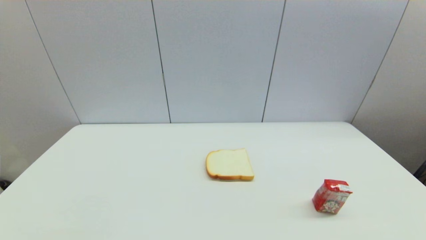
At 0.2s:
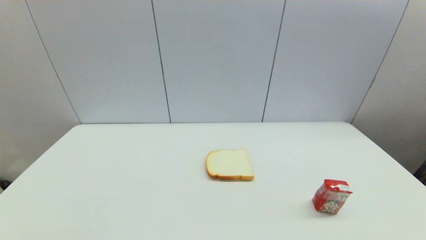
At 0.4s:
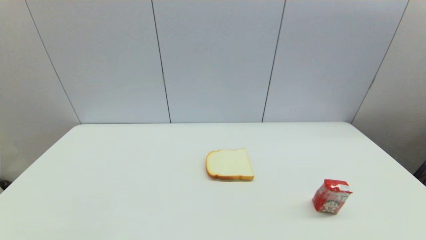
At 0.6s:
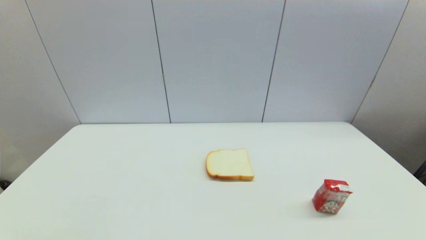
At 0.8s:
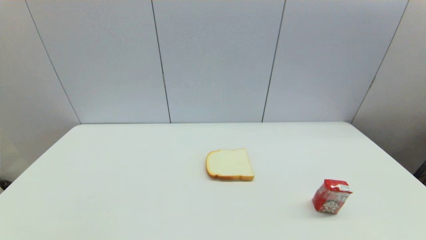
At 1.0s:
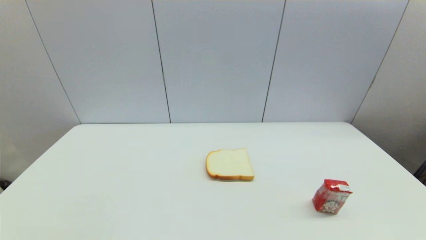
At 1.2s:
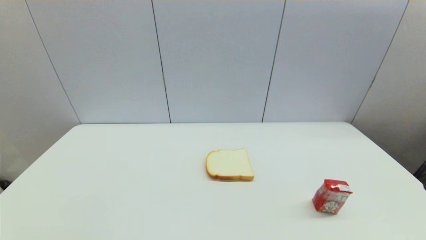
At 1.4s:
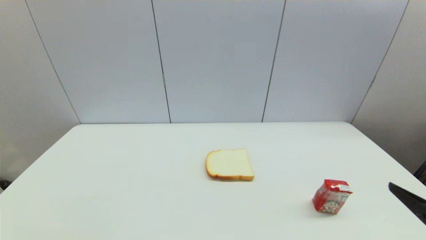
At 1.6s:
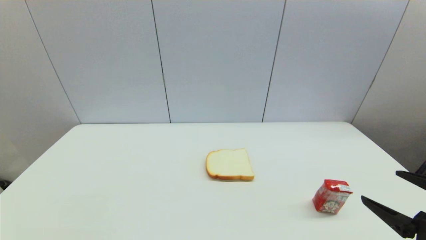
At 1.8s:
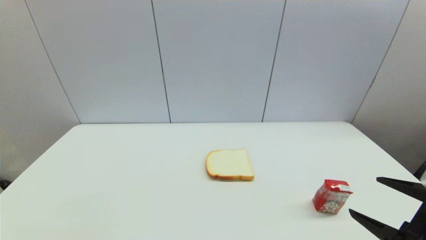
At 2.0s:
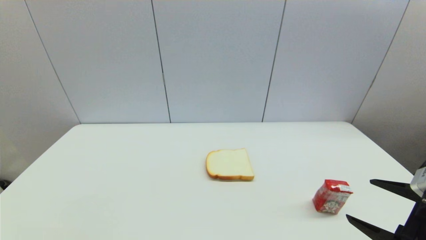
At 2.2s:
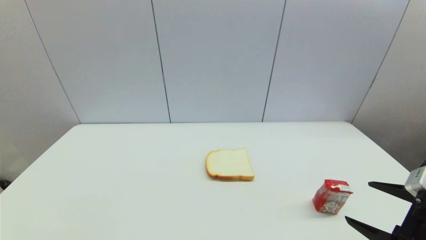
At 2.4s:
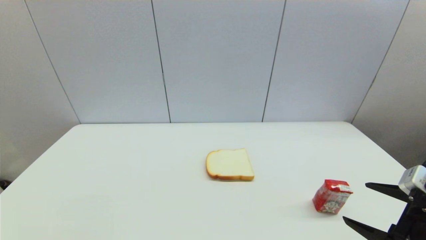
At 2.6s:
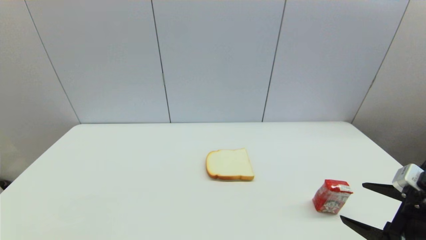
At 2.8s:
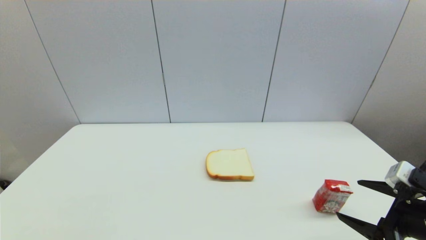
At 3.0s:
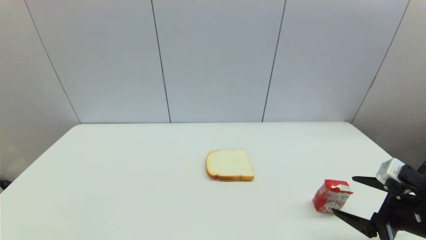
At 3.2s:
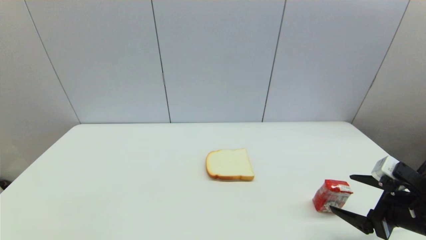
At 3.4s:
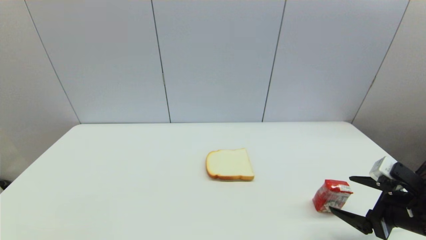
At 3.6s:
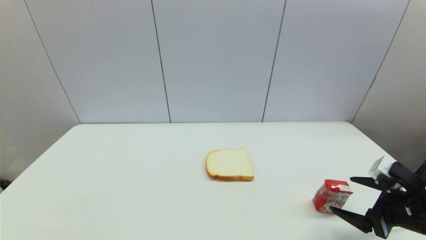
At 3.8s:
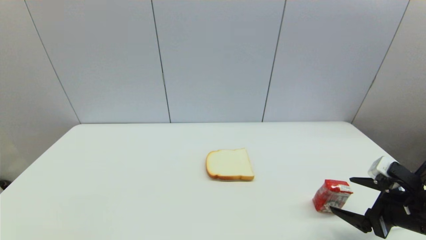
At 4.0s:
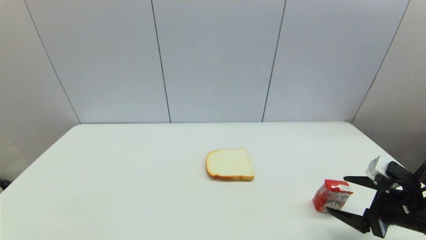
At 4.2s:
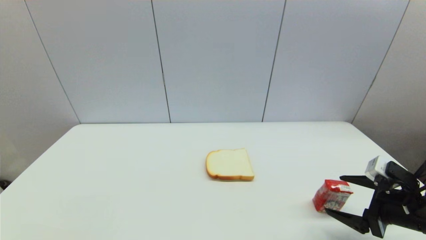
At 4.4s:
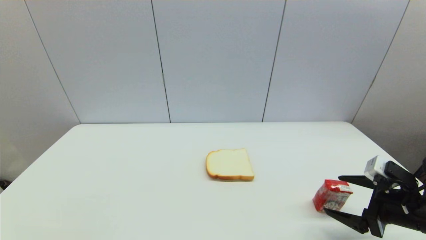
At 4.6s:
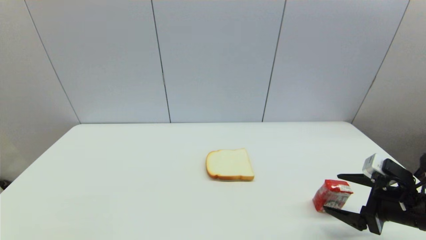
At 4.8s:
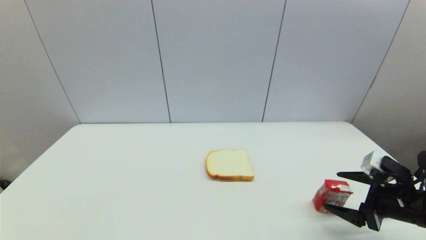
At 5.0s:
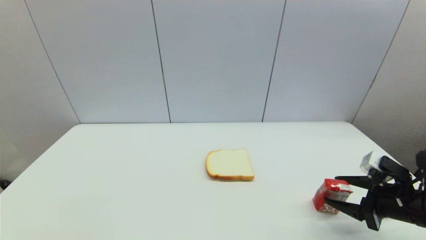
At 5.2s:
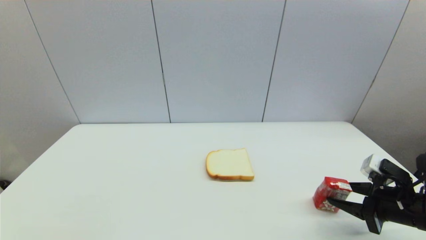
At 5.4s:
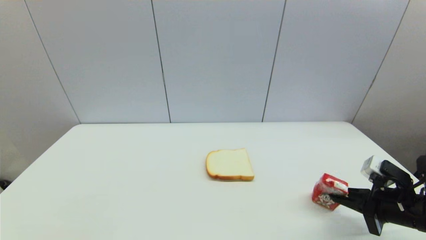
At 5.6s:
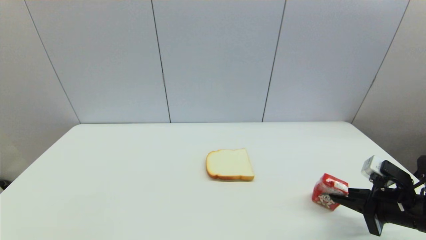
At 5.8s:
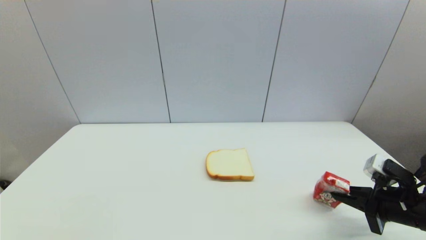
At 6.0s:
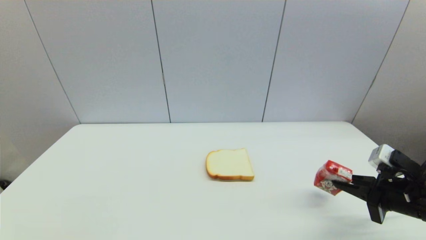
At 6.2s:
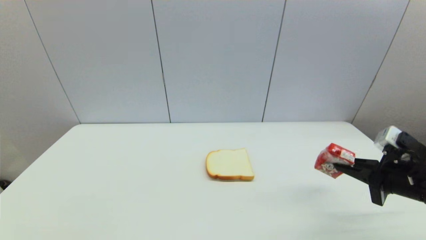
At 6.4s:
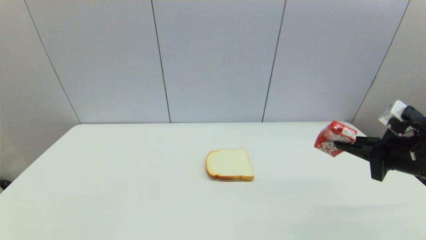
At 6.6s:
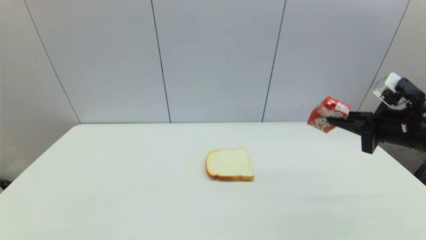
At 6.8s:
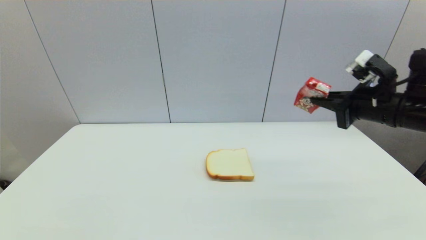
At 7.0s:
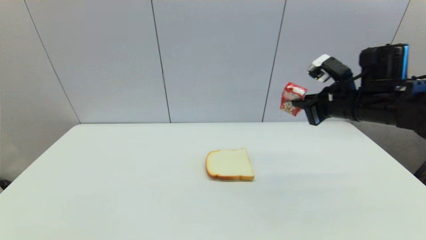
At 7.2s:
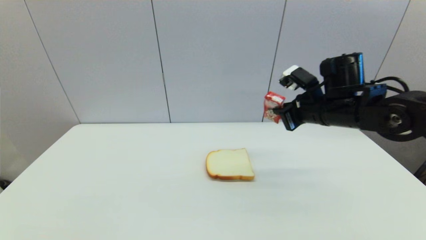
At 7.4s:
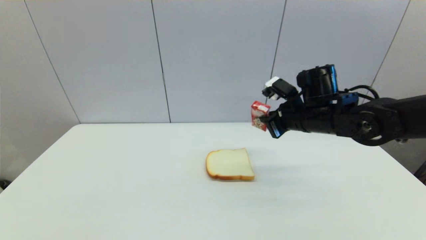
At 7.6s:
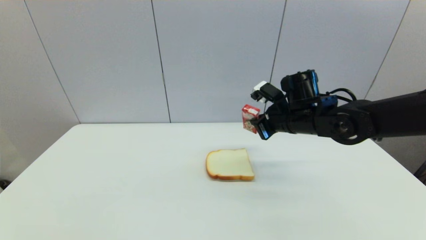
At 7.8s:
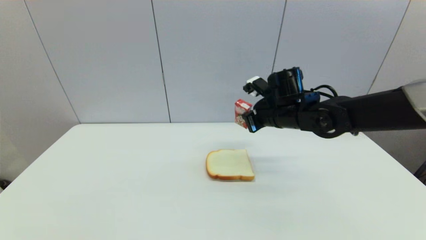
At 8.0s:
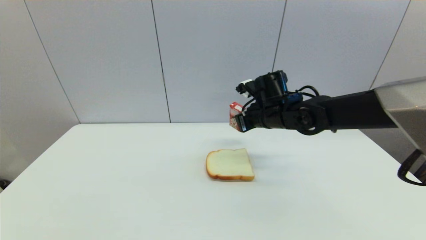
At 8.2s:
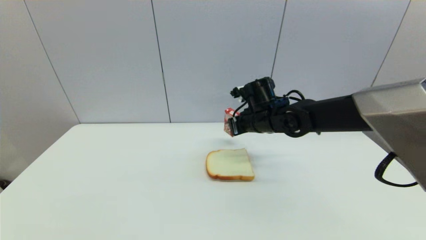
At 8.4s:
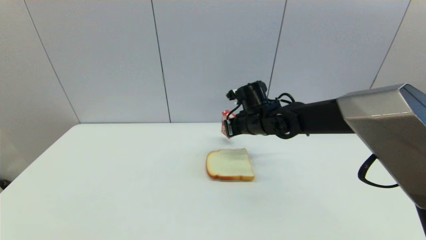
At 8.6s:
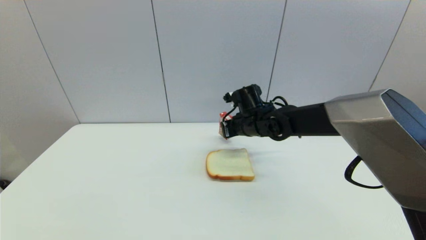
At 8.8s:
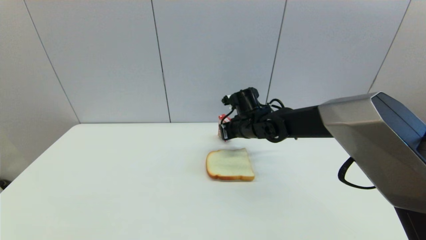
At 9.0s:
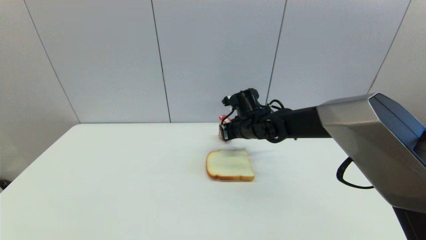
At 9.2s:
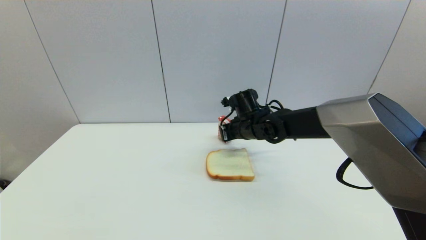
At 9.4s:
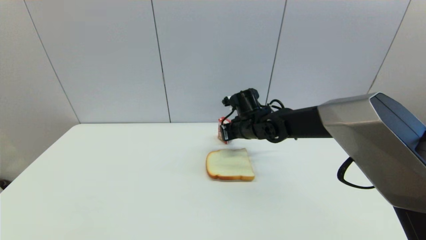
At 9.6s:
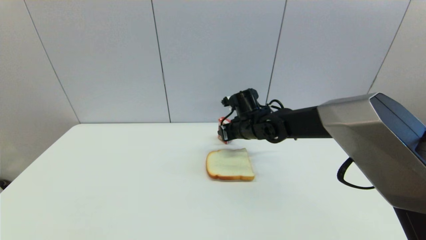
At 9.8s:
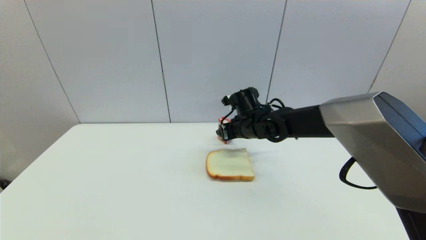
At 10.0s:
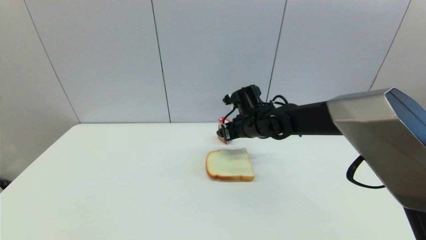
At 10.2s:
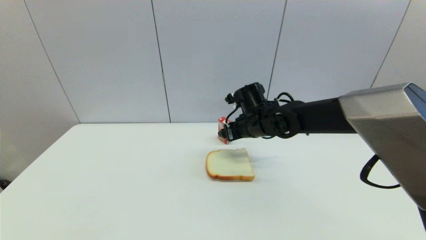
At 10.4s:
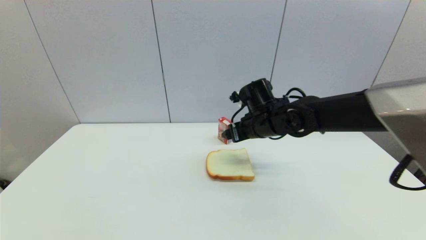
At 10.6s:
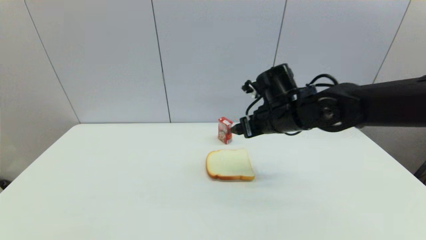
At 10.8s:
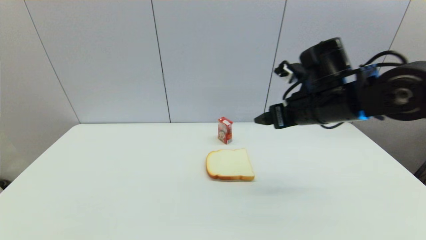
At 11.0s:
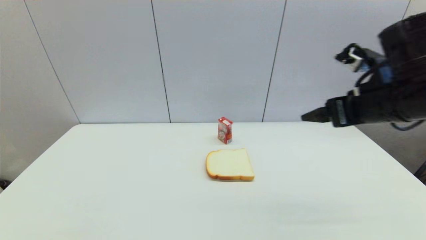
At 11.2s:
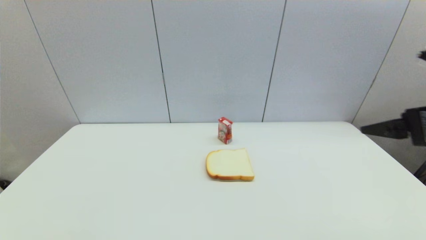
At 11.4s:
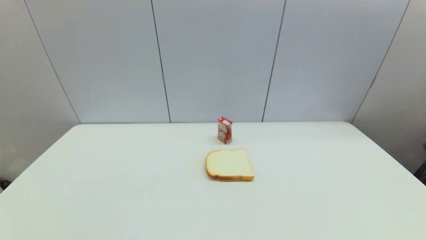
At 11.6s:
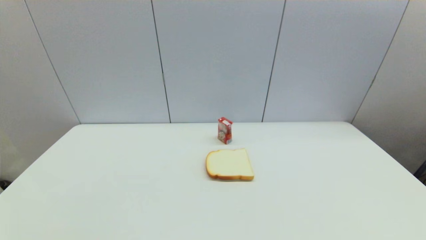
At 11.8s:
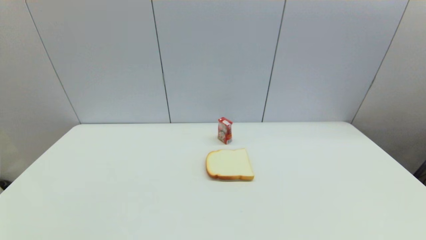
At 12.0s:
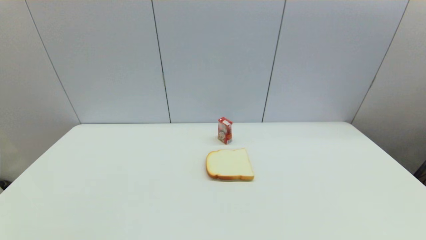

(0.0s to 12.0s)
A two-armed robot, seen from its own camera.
Step, 1.4s - 5.6s: Grasp the wangzai milk with right gripper.
Step, 6.0s - 9.4s: Place the wangzai milk on the table with right gripper.
0.0s - 1.6s: The right gripper goes about 15 cm forward and upward.
1.6s - 3.0s: The right gripper travels forward by roughly 5 cm.
3.0s - 4.4s: The grippers make only small movements.
4.4s - 6.0s: The right gripper closes.
6.0s - 7.6s: The right gripper heads to the left and forward, covering about 25 cm.
7.6s - 9.0s: The right gripper shifts about 10 cm to the left, downward and forward.
9.0s - 10.4s: The right gripper ends up some 5 cm from where it was, and opens up.
10.4s - 12.0s: The right gripper is displaced backward and to the right by about 40 cm.

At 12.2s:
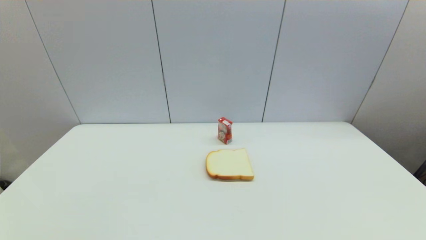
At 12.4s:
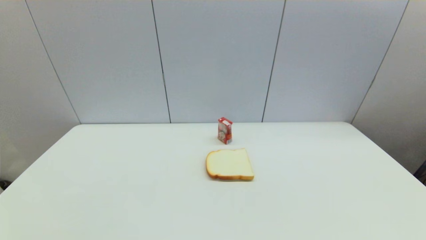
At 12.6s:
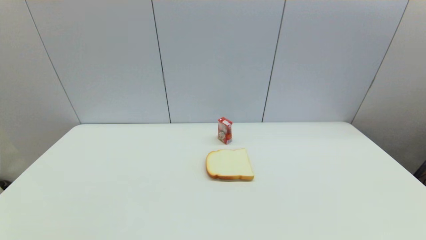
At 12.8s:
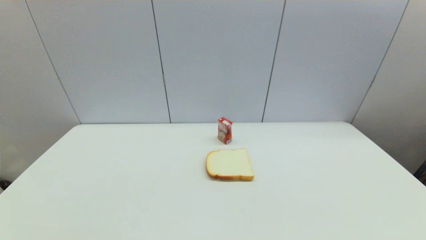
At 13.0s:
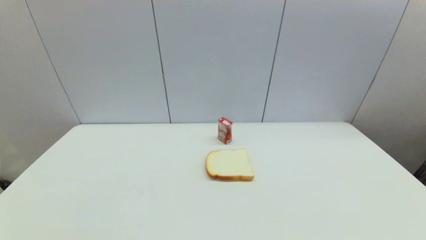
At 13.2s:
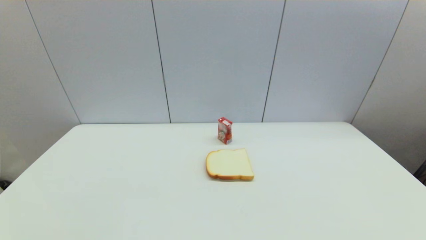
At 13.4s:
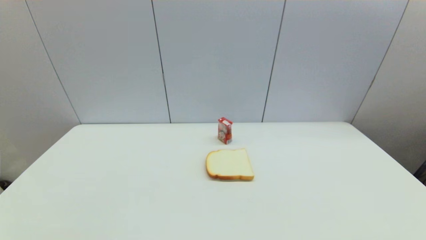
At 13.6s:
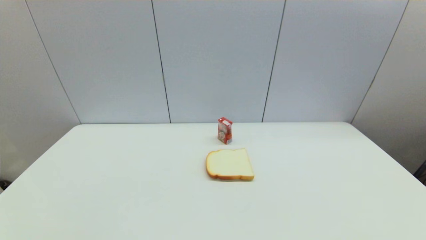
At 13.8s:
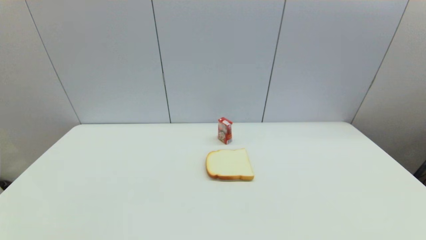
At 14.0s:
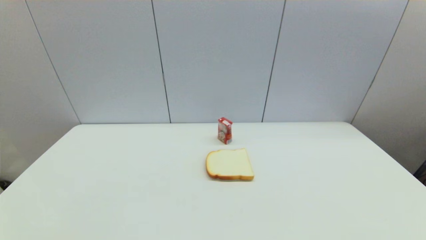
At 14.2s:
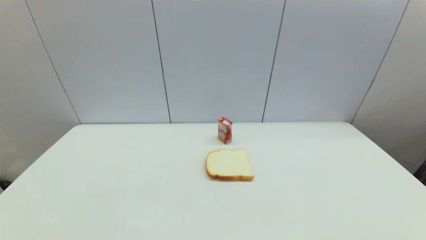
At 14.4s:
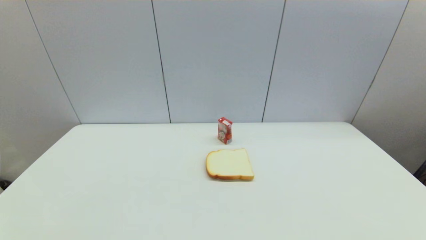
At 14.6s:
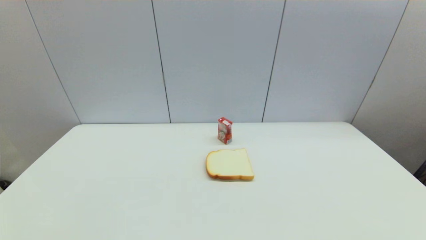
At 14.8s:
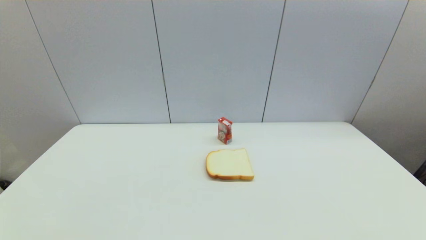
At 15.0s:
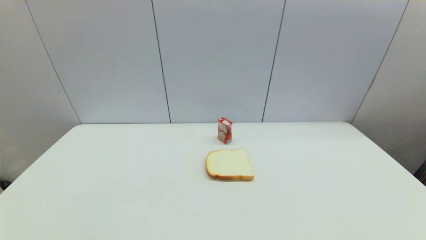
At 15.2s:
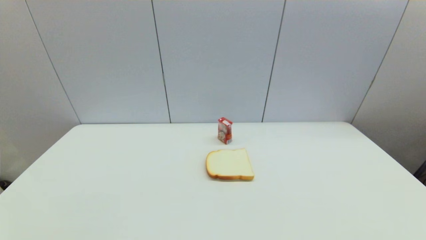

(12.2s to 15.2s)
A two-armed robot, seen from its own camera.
13.8s - 15.2s: The two grippers keep their place.

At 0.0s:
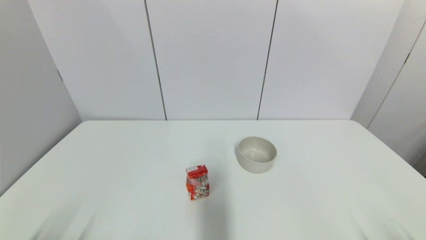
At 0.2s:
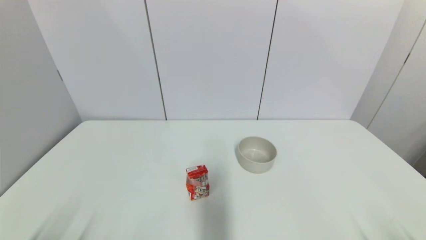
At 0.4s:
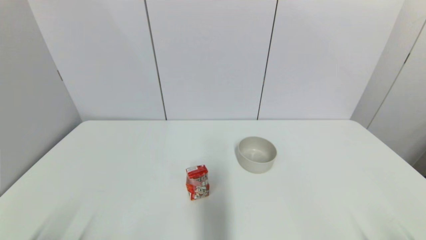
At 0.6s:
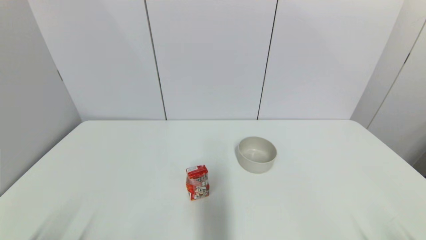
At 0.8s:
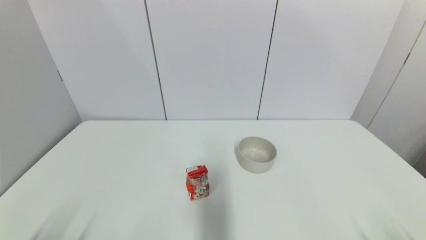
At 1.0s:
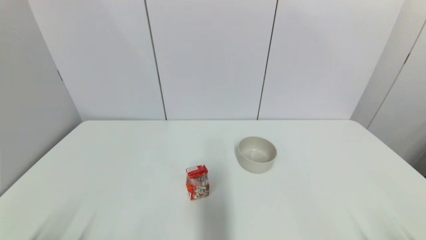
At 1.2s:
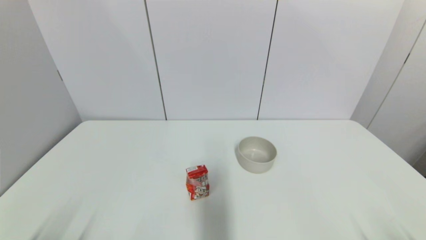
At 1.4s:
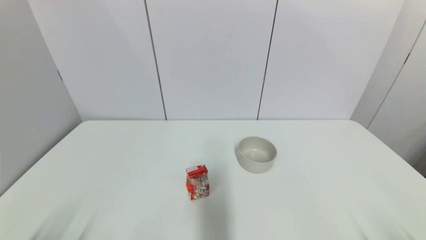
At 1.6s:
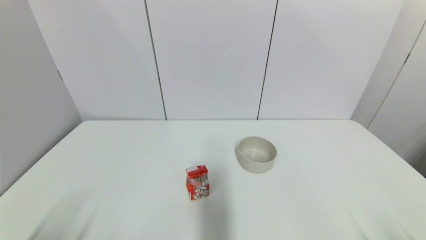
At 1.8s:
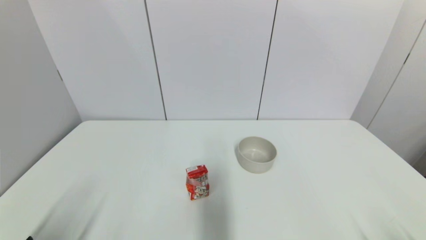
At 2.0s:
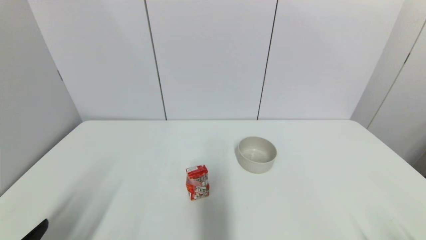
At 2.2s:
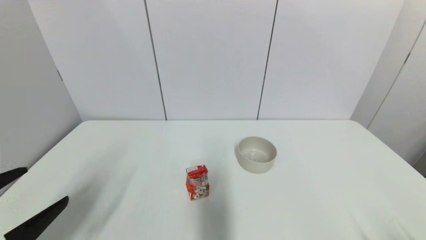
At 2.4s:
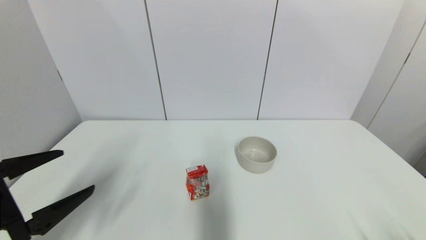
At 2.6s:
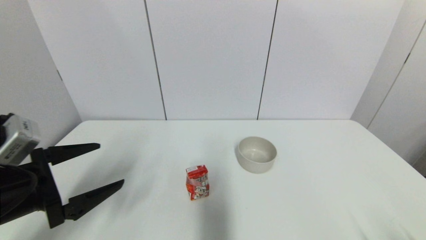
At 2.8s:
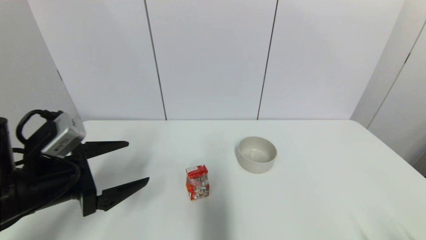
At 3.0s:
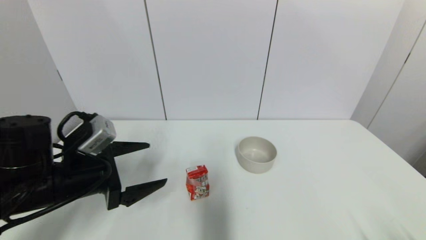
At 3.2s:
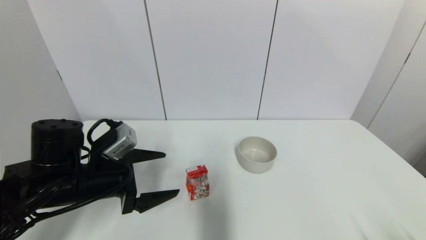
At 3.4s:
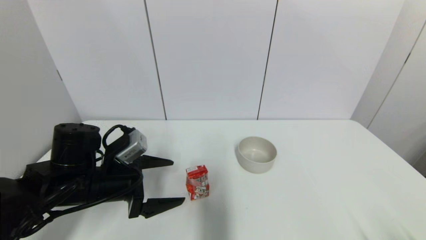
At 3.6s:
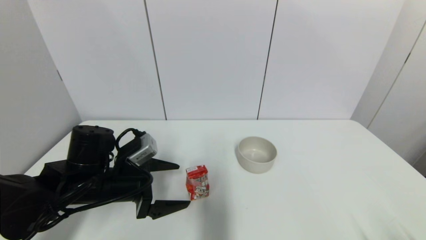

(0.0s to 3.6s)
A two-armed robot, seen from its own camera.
1.8s - 3.6s: The left gripper goes about 25 cm forward and to the right.
